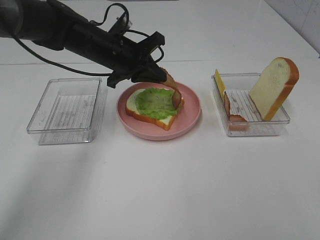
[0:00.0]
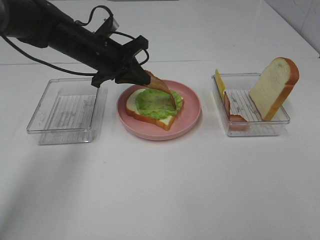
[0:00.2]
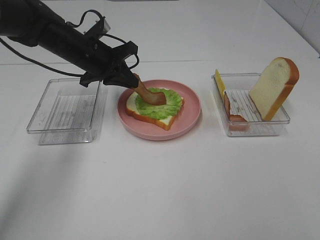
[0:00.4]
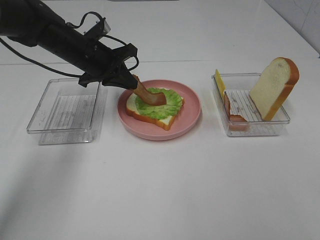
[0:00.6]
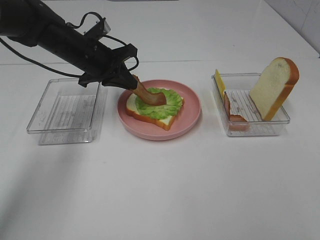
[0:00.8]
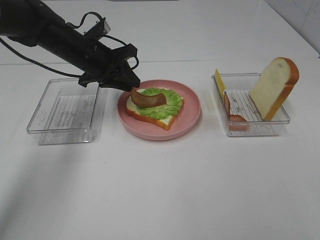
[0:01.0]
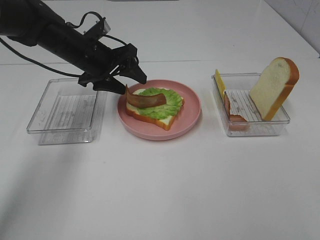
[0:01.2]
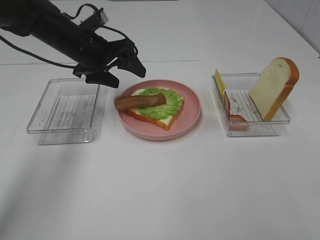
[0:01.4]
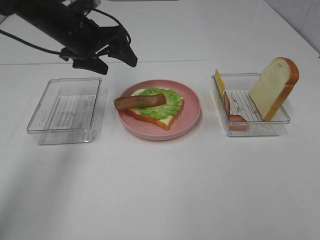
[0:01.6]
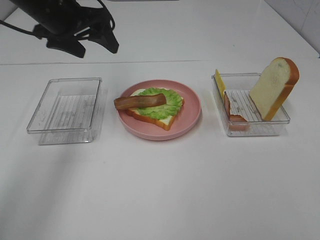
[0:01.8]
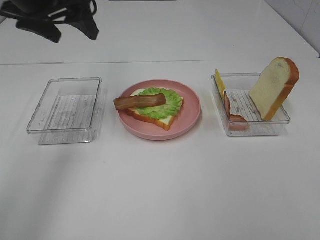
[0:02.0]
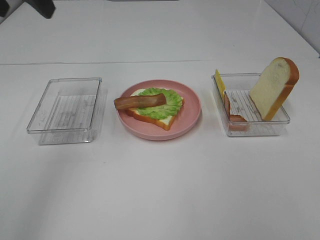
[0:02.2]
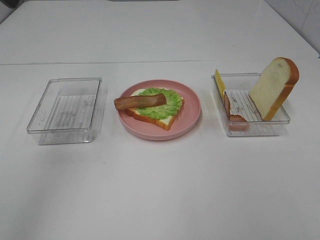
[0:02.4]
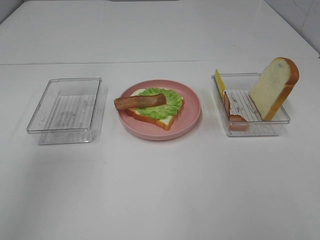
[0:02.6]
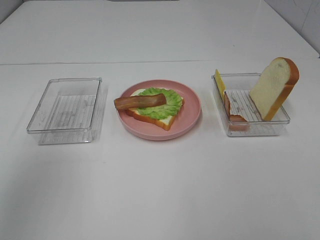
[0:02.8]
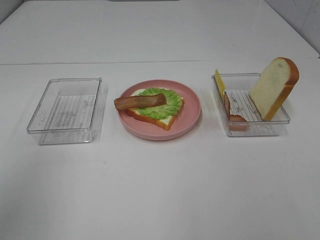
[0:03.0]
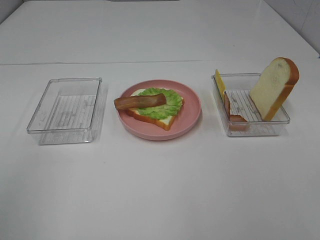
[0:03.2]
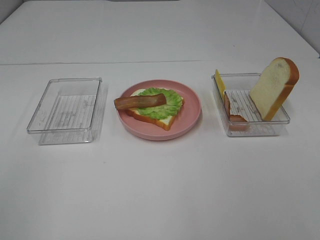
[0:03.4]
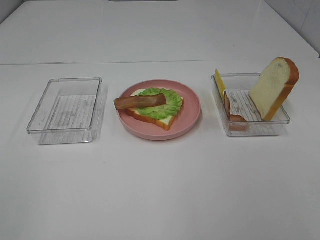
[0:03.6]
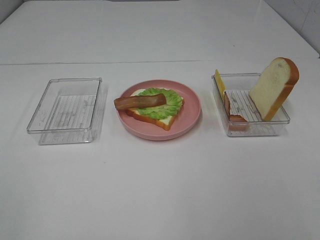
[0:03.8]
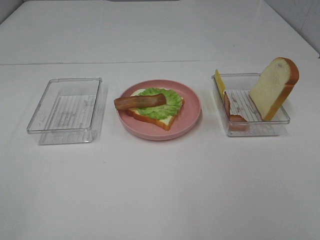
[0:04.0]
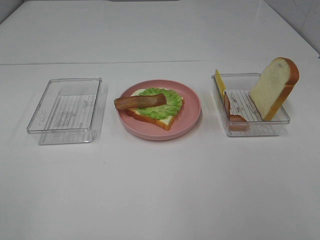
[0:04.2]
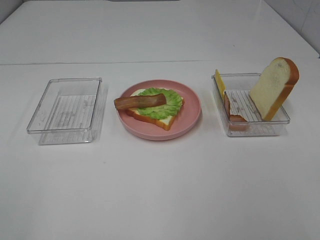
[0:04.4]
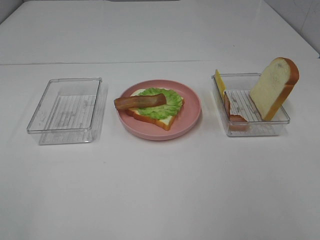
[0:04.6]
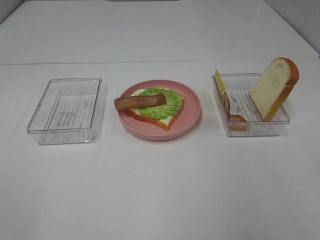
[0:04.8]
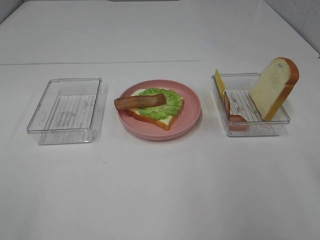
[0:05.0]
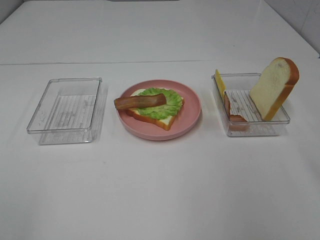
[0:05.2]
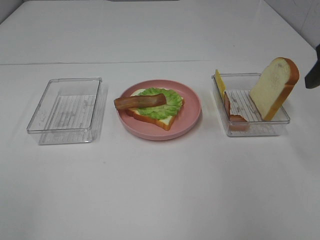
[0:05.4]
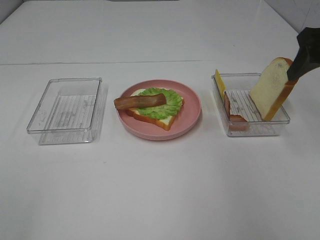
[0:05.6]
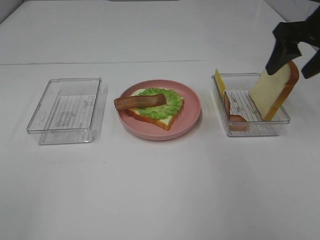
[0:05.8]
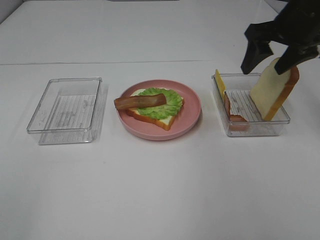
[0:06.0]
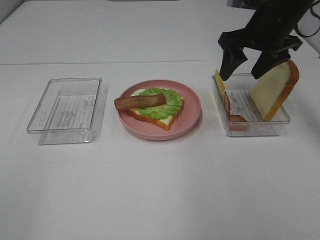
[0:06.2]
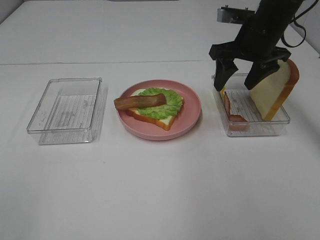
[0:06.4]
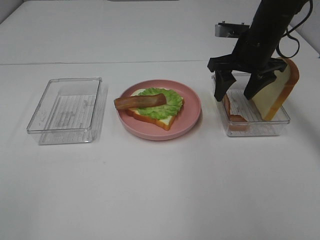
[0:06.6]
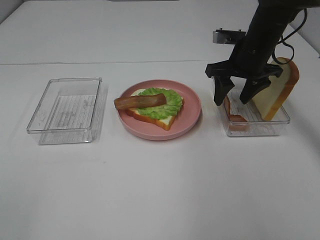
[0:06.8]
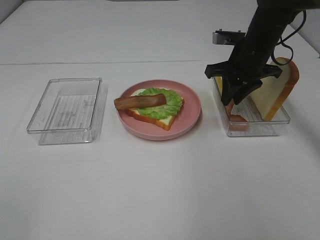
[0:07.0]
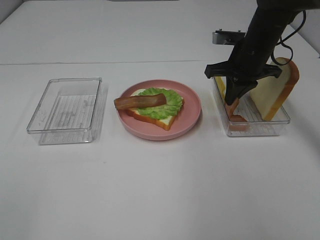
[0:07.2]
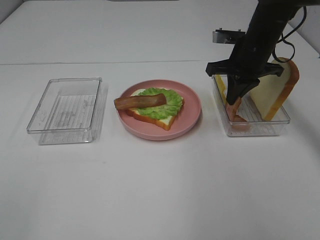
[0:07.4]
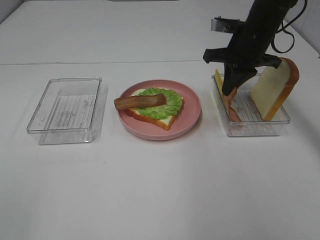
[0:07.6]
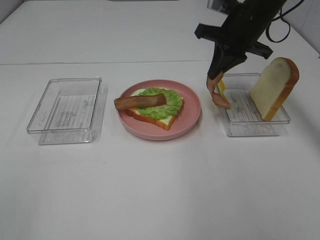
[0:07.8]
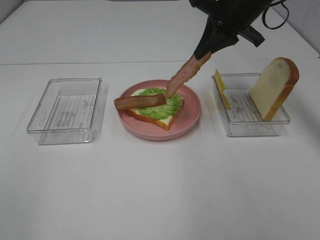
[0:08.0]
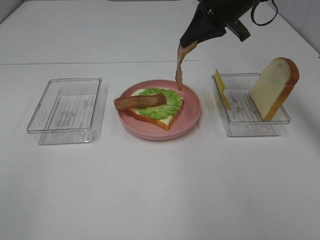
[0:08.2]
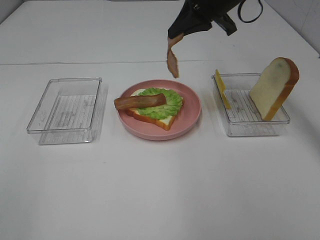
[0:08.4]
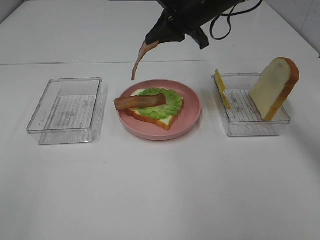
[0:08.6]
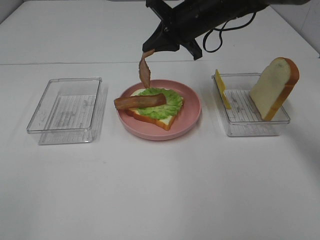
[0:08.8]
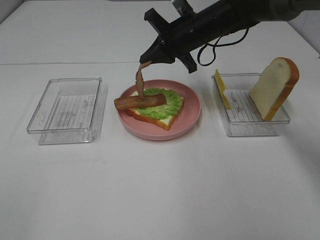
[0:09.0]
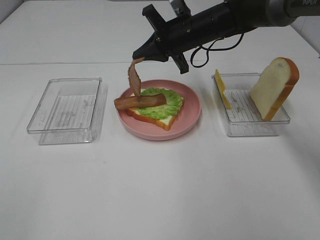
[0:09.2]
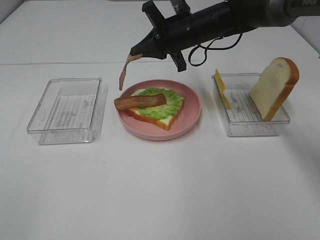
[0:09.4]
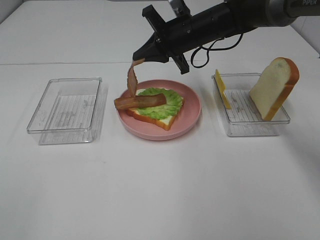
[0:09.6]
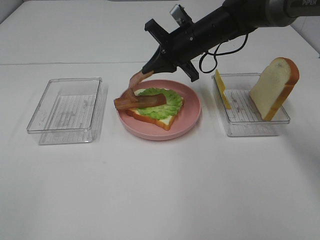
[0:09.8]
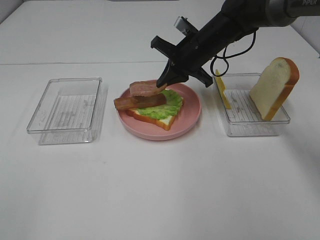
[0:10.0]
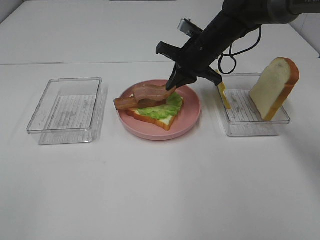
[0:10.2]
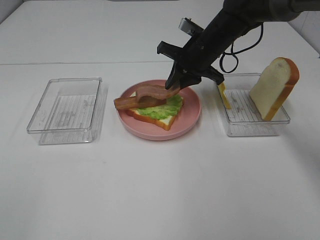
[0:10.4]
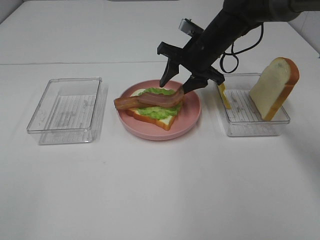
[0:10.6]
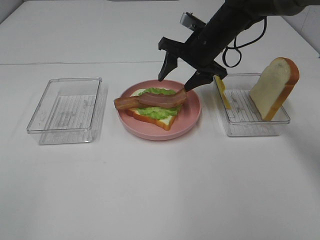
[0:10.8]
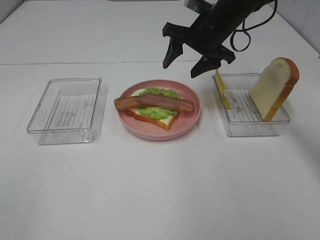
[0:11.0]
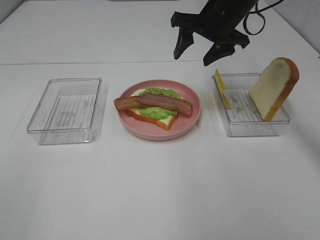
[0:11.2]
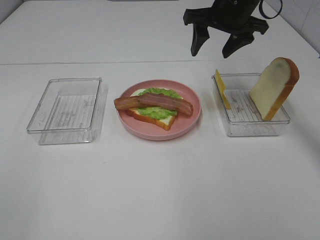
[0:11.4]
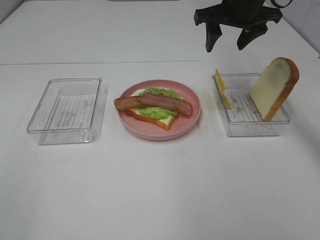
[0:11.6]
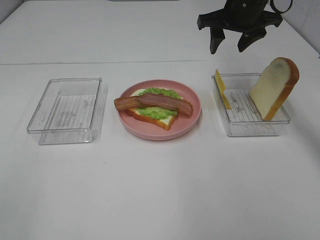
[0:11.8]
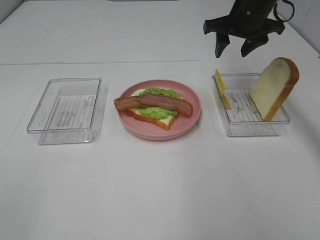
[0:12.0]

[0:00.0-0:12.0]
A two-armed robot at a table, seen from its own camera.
Task of the whole recording: Make sandwiches.
Step, 0:01.6 to 0:07.4: Right hand:grab the bacon.
Step, 0:07.6 to 0:10.8: Right hand:place bacon on bacon.
0:00.0 to 0:01.6: The left gripper heads to the left and upward, covering approximately 10 cm, and opens.
0:01.6 to 0:03.0: The left gripper heads backward, upward and to the left, covering approximately 35 cm.
0:04.4 to 0:06.0: The right gripper heads forward, covering about 35 cm.
0:06.0 to 0:07.6: The right gripper heads downward and to the left, covering some 10 cm, and closes its fingers.
0:07.6 to 0:09.0: The right gripper heads to the left, covering approximately 10 cm, and goes upward and returns, some 5 cm each way.
0:10.4 to 0:12.0: The right gripper goes roughly 10 cm to the right and upward, and opens.

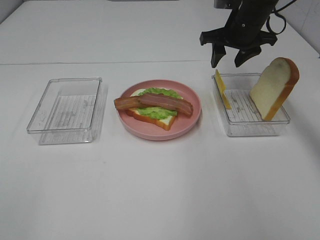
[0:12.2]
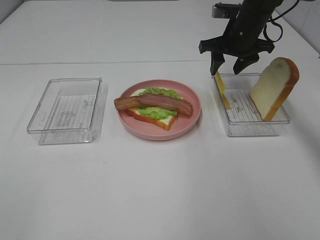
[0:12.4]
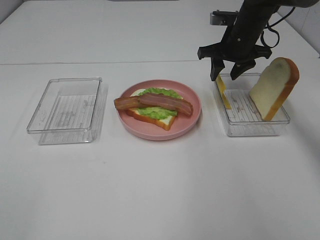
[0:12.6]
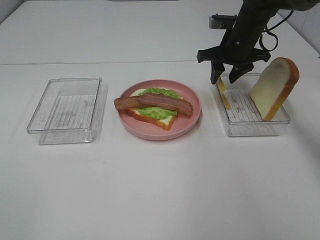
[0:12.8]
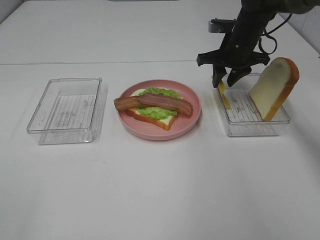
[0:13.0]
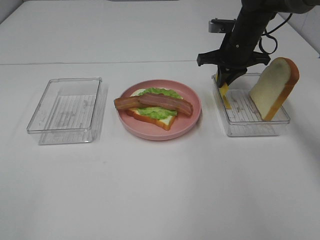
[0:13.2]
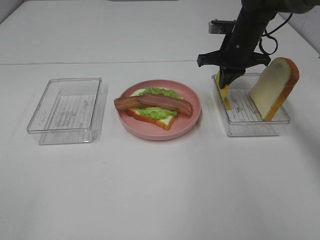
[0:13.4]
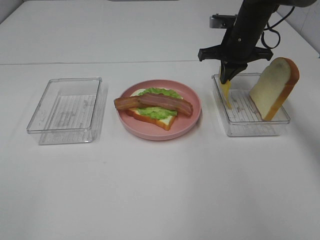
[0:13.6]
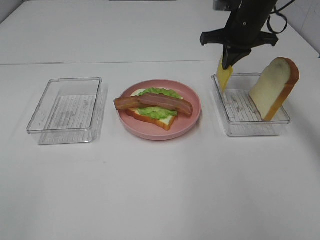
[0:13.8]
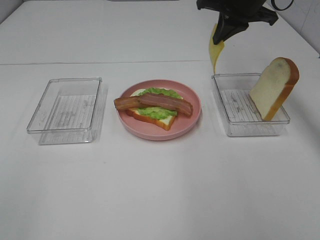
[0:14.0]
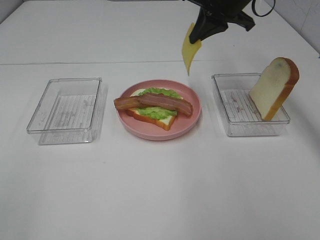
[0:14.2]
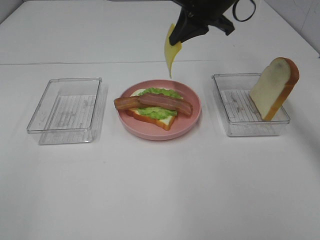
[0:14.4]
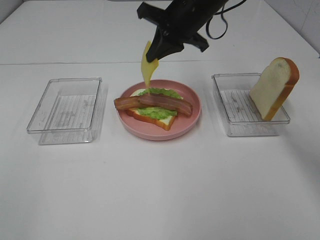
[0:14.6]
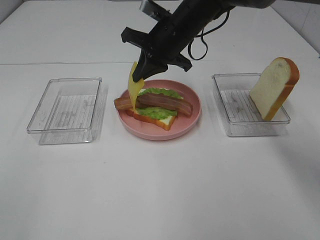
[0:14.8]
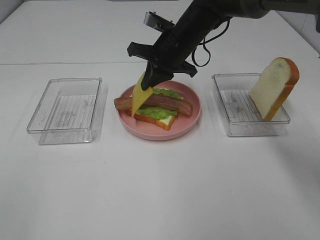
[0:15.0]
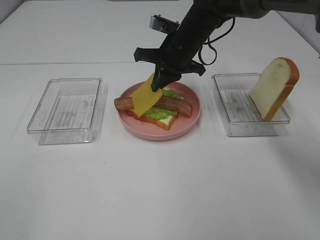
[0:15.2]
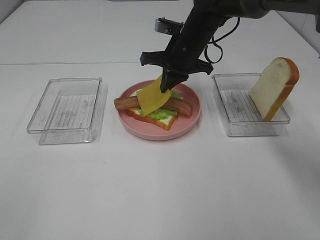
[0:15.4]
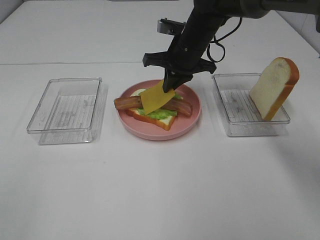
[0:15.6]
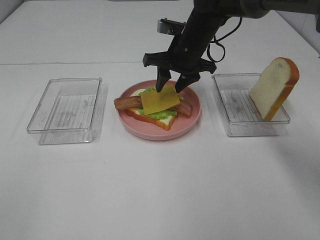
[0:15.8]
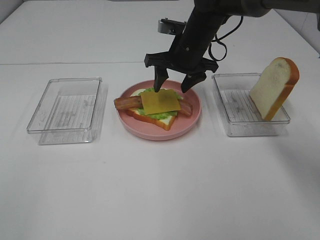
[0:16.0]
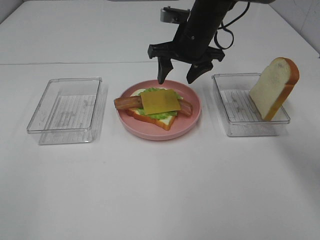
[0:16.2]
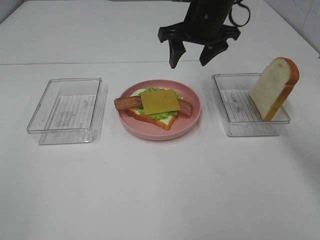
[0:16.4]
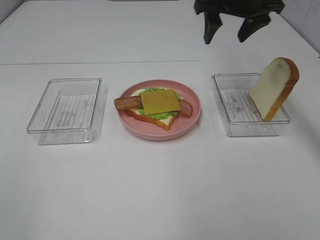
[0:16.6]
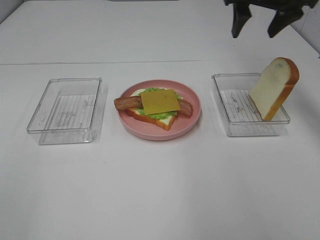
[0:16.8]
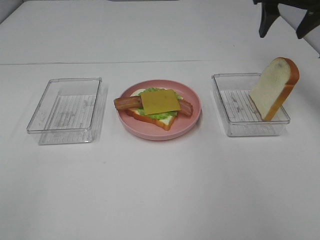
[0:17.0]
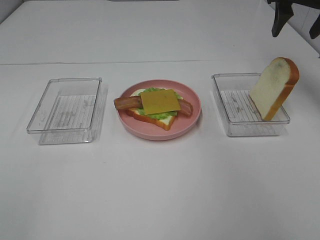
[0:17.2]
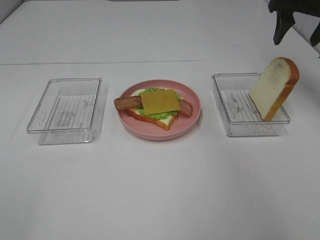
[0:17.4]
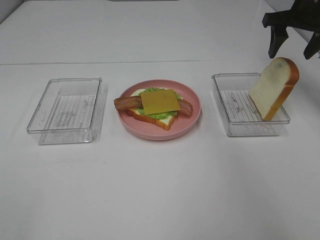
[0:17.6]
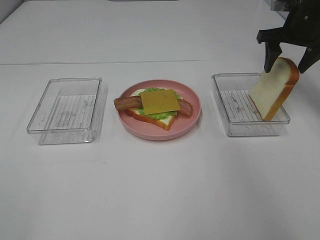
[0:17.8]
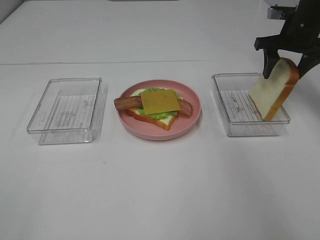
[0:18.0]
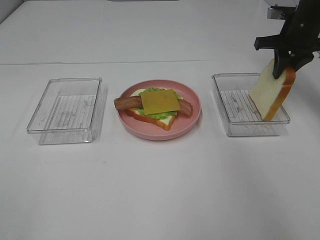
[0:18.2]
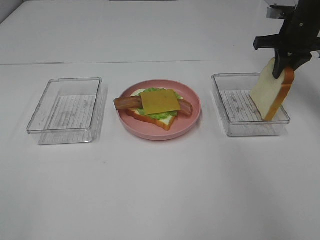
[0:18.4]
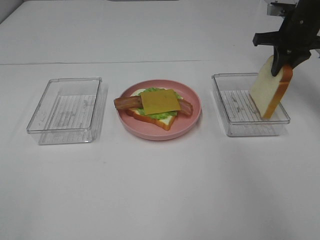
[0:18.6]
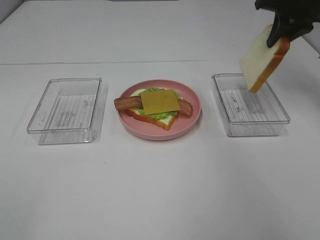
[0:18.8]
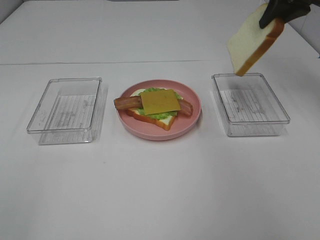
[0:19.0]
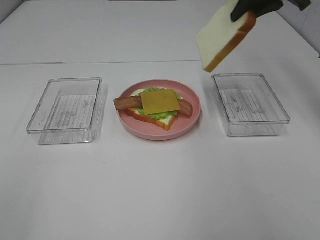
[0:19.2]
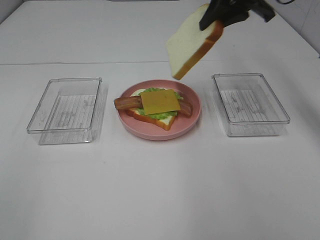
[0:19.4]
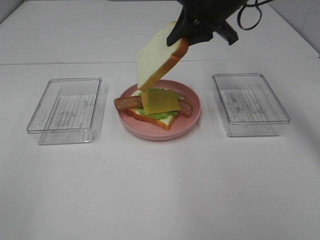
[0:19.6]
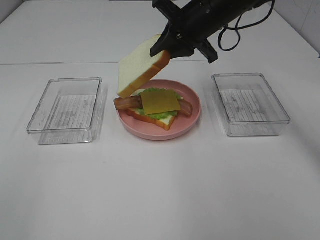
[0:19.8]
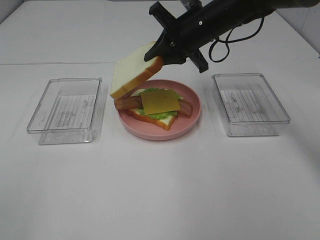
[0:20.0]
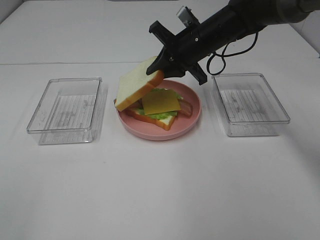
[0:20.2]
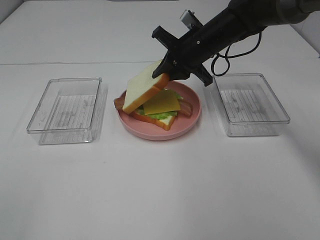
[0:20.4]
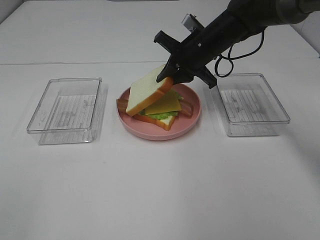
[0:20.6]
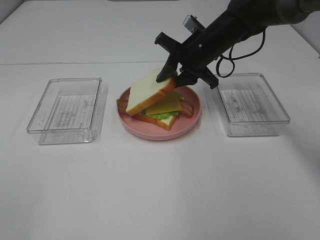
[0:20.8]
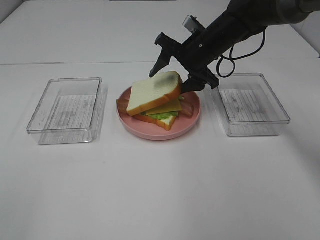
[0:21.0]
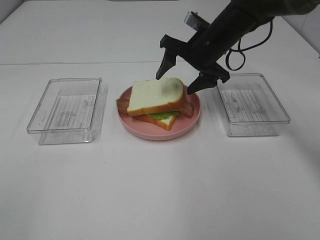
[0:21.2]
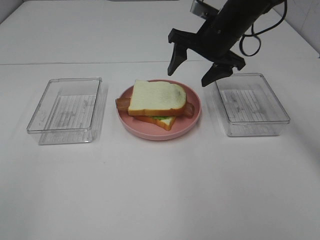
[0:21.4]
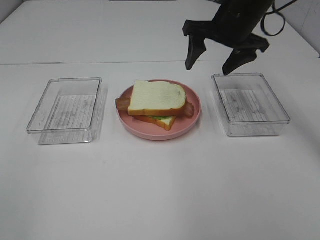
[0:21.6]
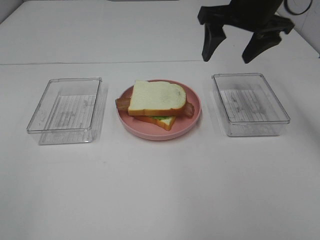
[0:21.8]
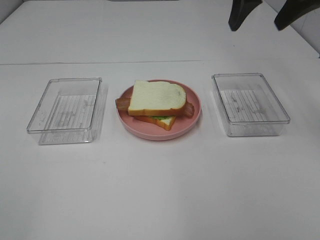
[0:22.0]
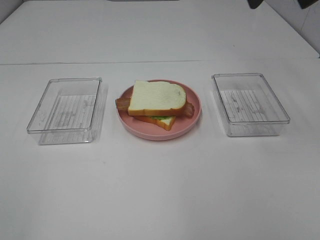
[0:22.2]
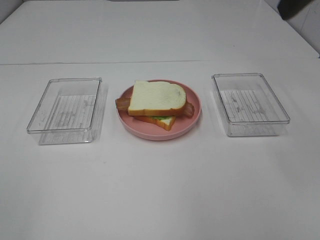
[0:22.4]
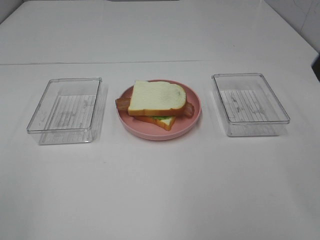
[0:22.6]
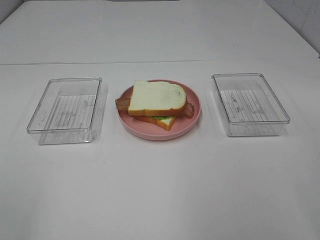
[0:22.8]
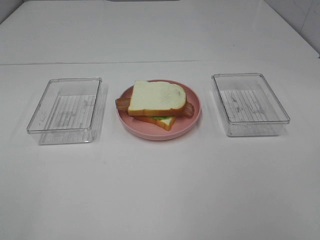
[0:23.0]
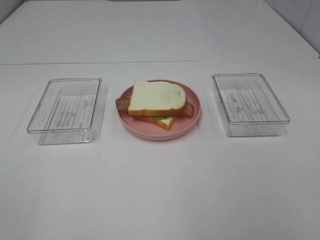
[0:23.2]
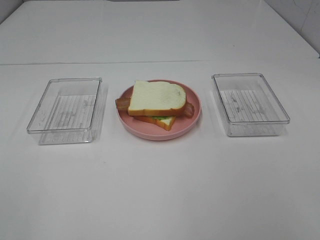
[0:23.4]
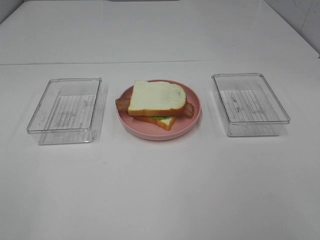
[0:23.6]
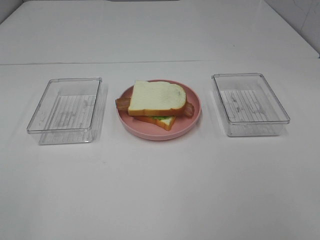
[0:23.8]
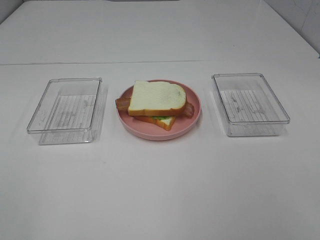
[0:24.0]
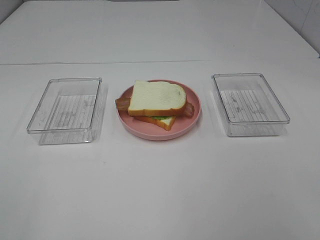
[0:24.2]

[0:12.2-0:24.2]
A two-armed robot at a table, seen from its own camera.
Task of the whole recording: Make sandwiches.
Step, 0:13.2 to 0:16.2: Right hand:place the cheese slice on top of the bacon.
Step, 0:16.4 to 0:18.6: Right hand:grab the bread slice.
Step, 0:18.8 to 0:21.4: Right hand:place the bread slice on the cheese slice.
0:12.2 to 0:13.8: The right gripper closes up.
0:13.8 to 0:15.2: The right gripper is displaced to the left by about 10 cm.
0:15.2 to 0:16.6: The right gripper is displaced upward and to the right by roughly 15 cm, and opens up.
0:16.6 to 0:18.2: The right gripper shifts some 15 cm to the right and downward, and closes its fingers.
0:18.2 to 0:19.8: The right gripper heads to the left, covering roughly 20 cm.
0:19.8 to 0:21.2: The right gripper moves some 5 cm, and opens its fingers.
0:21.2 to 0:22.6: The right gripper is displaced backward, upward and to the right by approximately 35 cm.
